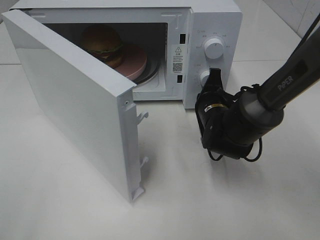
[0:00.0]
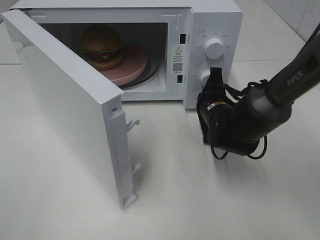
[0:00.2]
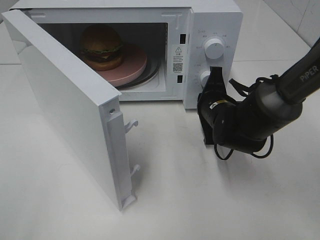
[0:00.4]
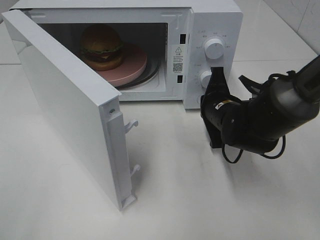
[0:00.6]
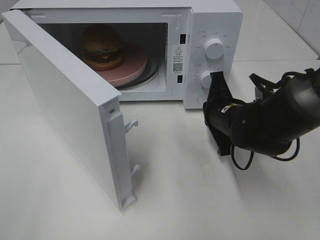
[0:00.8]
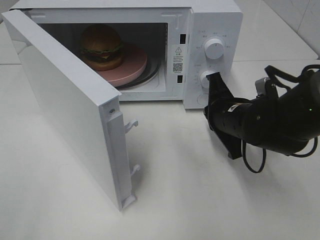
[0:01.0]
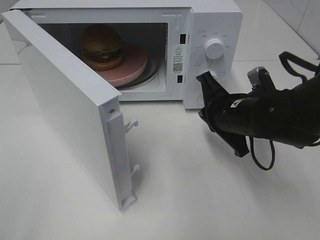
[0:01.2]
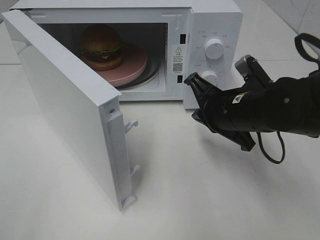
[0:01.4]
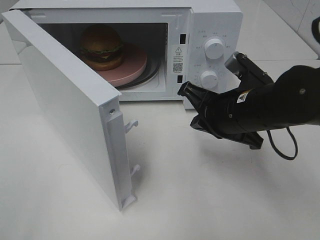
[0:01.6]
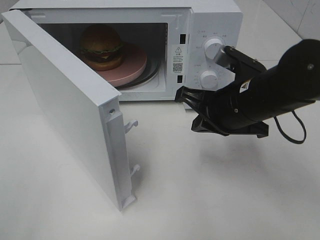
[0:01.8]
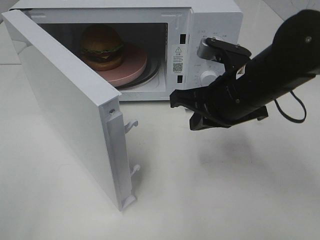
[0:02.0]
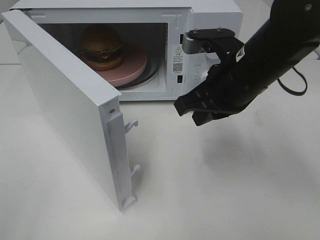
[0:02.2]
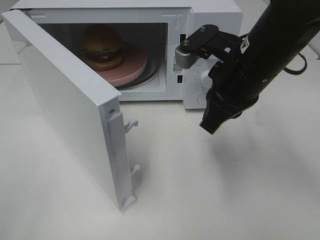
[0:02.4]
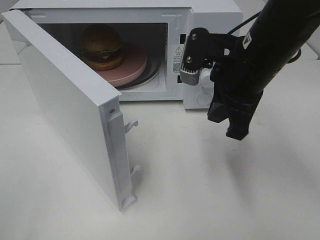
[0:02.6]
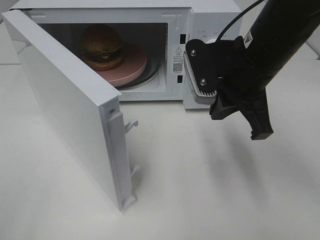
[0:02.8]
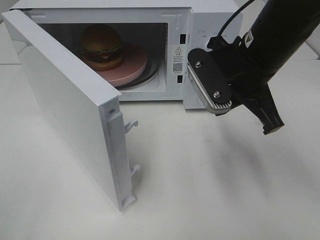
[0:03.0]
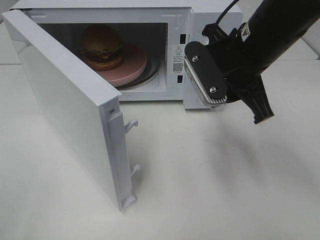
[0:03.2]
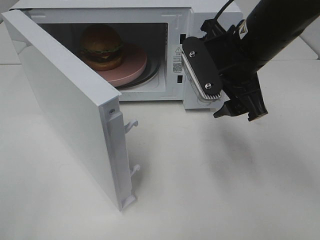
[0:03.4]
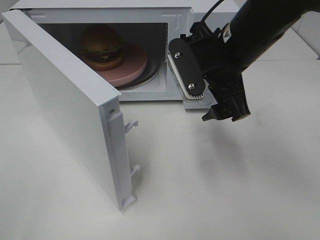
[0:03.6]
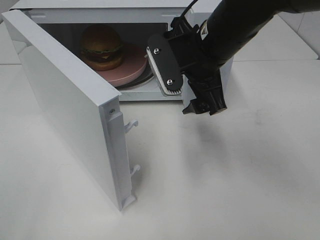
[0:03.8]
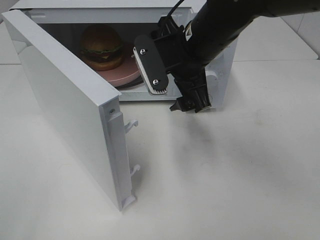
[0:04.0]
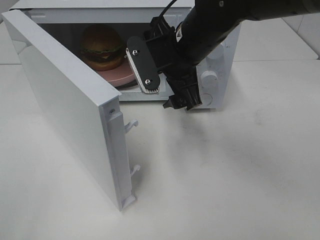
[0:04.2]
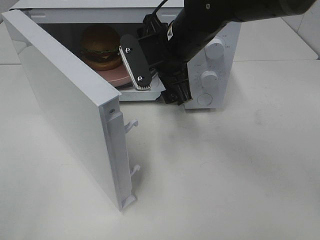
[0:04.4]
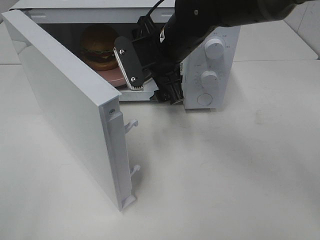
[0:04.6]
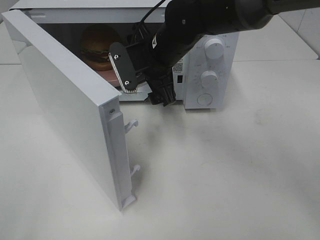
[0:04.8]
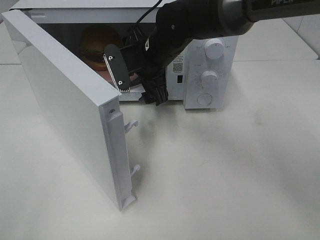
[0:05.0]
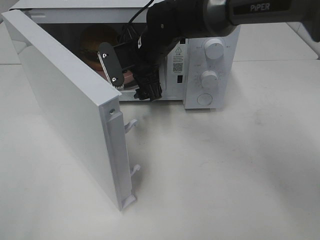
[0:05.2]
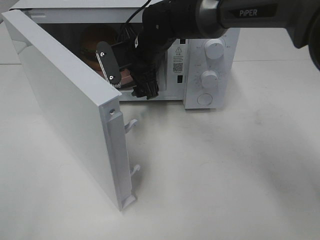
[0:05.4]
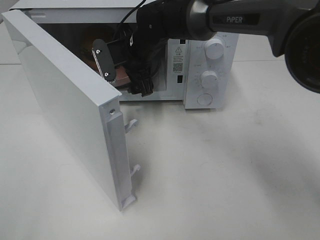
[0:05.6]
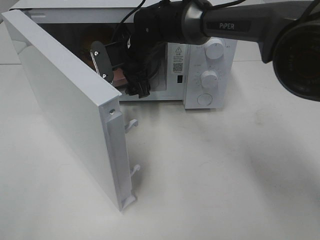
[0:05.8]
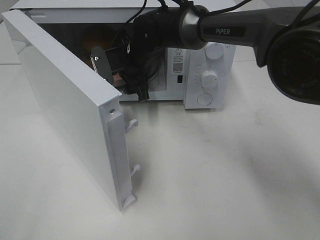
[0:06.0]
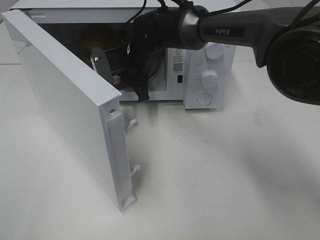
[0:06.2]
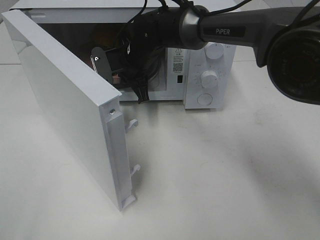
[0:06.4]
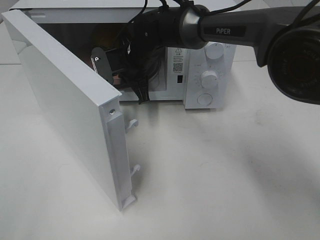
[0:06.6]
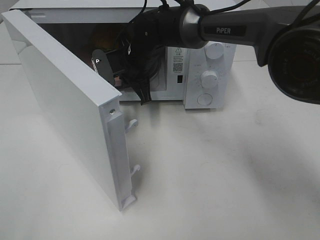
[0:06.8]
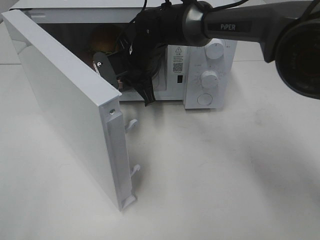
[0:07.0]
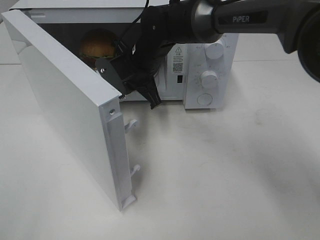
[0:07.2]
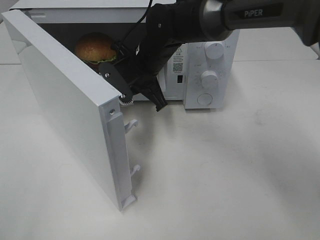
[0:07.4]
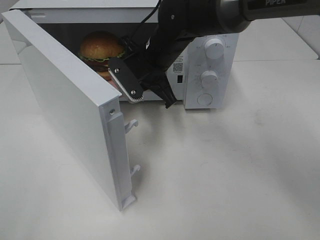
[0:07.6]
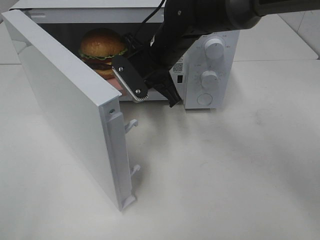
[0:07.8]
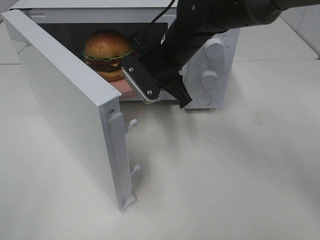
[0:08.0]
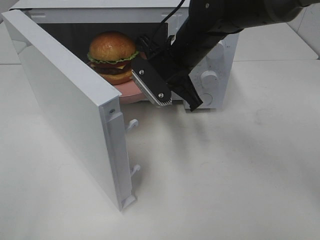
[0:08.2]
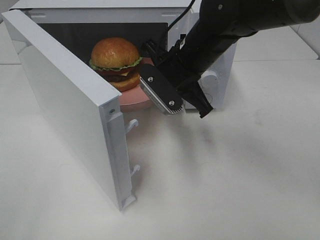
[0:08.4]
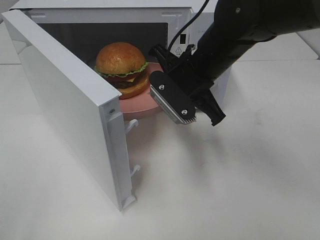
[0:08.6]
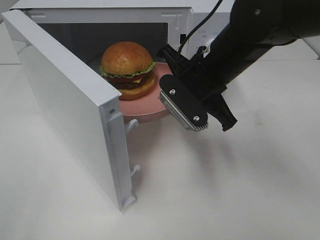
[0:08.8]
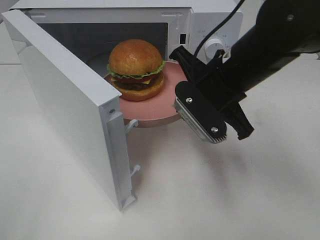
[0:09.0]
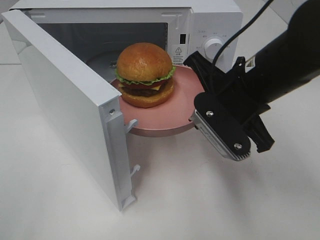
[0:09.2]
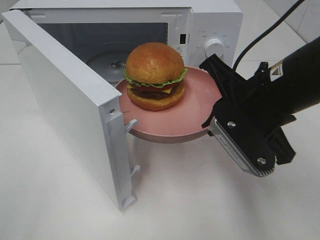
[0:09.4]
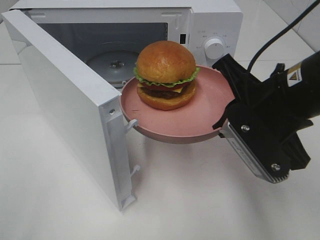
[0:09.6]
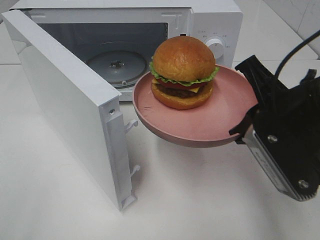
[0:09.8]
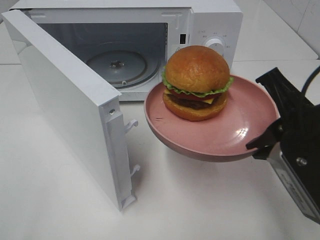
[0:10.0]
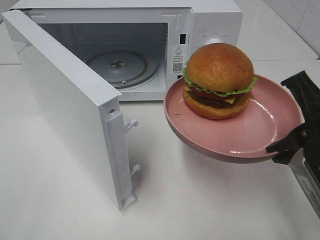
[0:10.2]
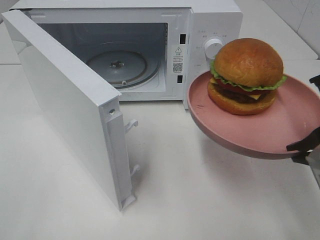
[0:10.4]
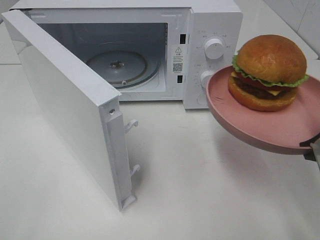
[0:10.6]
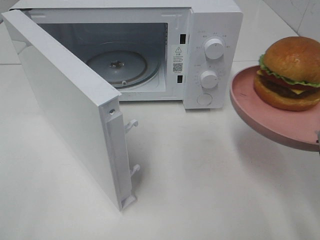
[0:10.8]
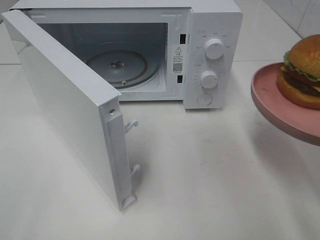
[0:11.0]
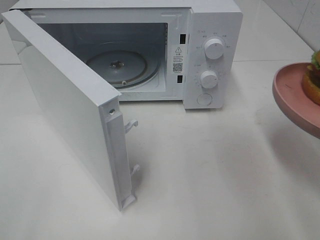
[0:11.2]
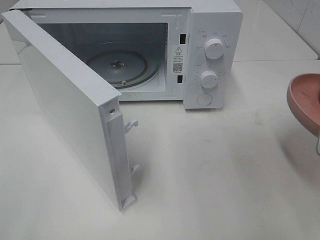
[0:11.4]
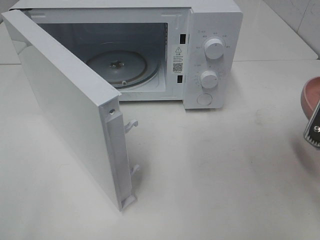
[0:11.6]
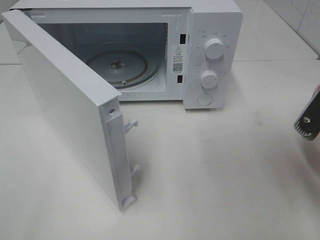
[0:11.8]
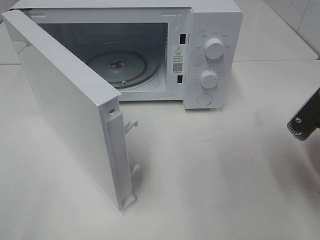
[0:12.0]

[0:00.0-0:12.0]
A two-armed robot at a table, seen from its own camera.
Task of the whole recording: Heat the burger.
Step, 0:01.2 to 0:06.6: Right hand: grab the plate with the hamburger.
0:00.0 to 0:01.6: The right gripper moves upward and backward, approximately 15 cm.
0:01.6 to 0:03.0: The right gripper shifts some 10 cm upward.
0:03.0 to 0:04.4: The right gripper heads to the left and forward, covering some 10 cm, and opens.
0:04.4 to 0:06.0: The right gripper travels forward, to the left and downward by some 15 cm.
0:06.0 to 0:07.6: The right gripper changes place by approximately 5 cm, and closes.
0:07.6 to 0:09.0: The right gripper is displaced backward and to the right by roughly 15 cm.
0:09.0 to 0:10.4: The right gripper goes approximately 20 cm backward and to the right.
0:10.4 to 0:12.0: The right gripper goes roughly 5 cm downward.

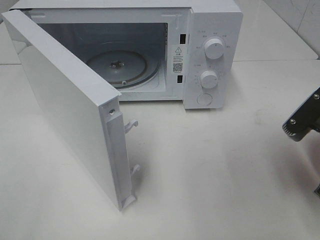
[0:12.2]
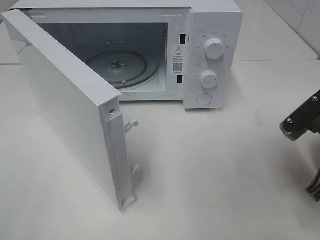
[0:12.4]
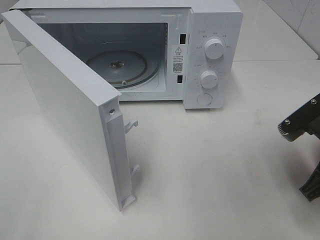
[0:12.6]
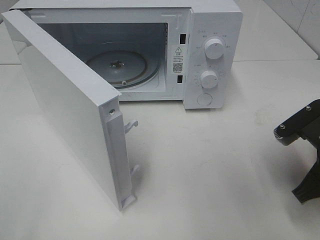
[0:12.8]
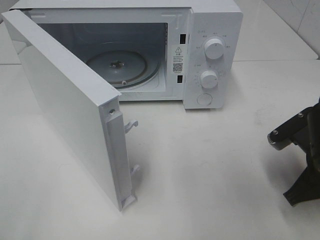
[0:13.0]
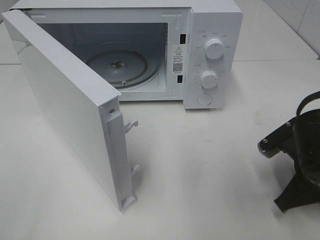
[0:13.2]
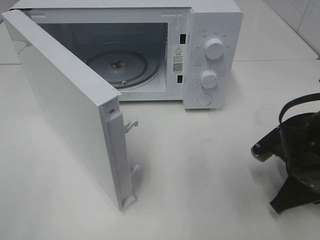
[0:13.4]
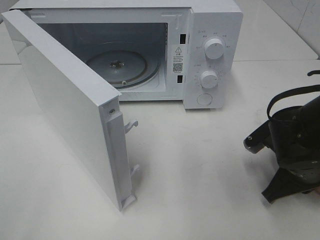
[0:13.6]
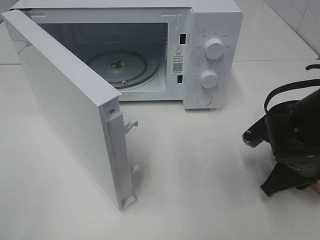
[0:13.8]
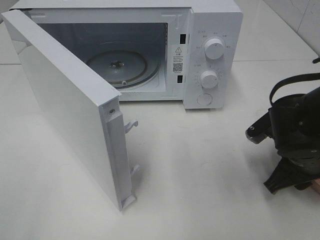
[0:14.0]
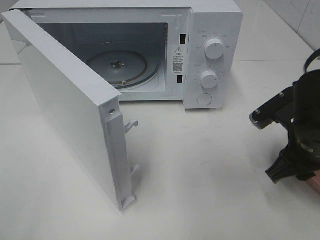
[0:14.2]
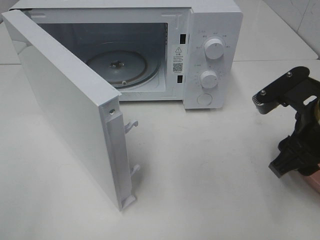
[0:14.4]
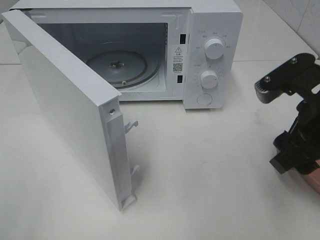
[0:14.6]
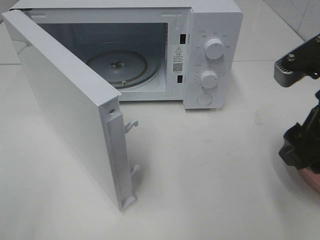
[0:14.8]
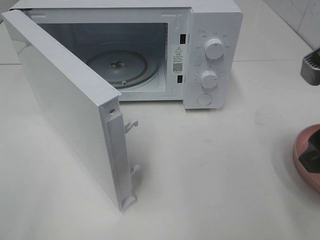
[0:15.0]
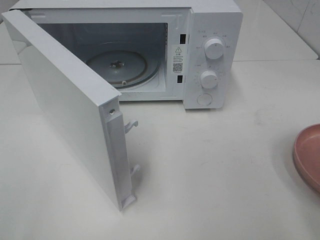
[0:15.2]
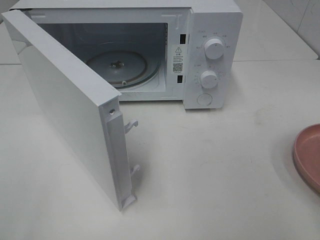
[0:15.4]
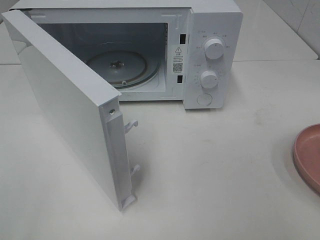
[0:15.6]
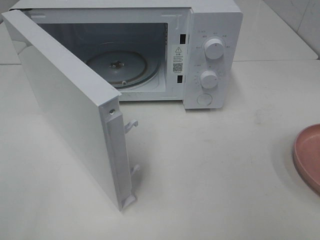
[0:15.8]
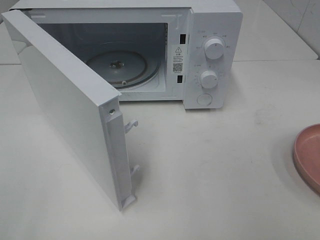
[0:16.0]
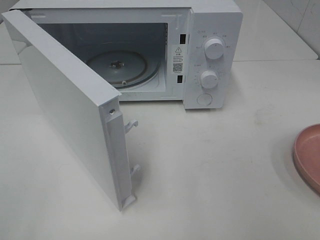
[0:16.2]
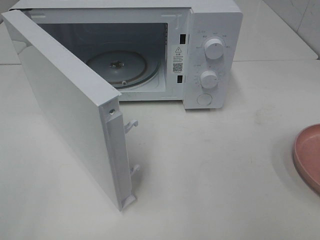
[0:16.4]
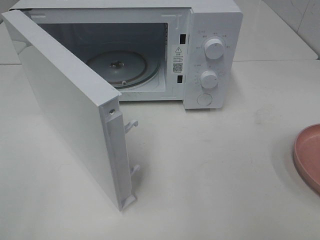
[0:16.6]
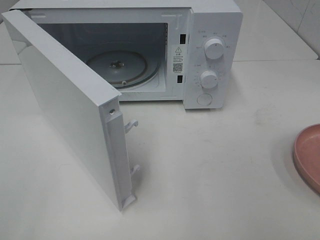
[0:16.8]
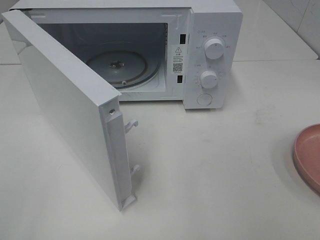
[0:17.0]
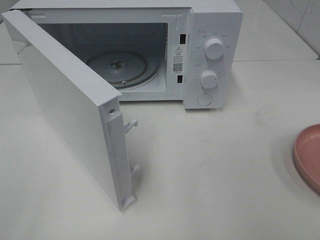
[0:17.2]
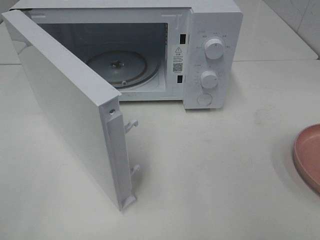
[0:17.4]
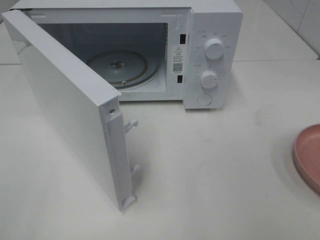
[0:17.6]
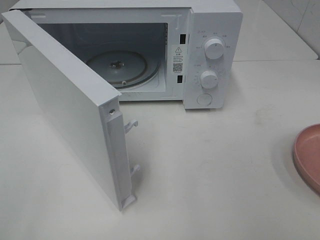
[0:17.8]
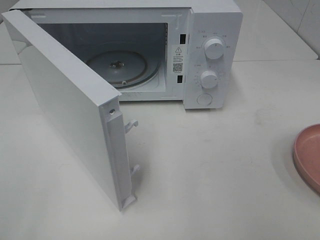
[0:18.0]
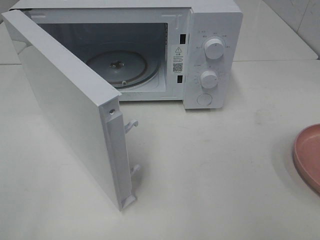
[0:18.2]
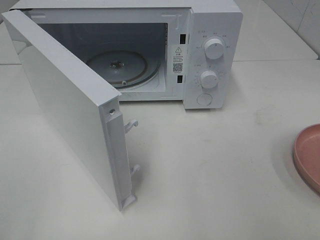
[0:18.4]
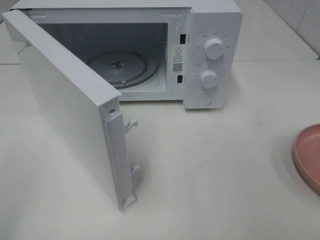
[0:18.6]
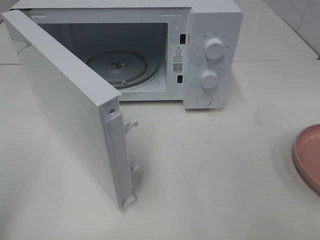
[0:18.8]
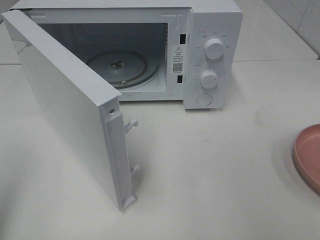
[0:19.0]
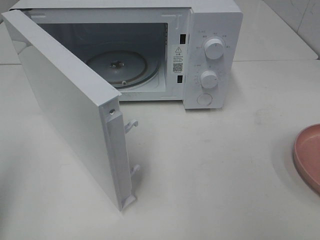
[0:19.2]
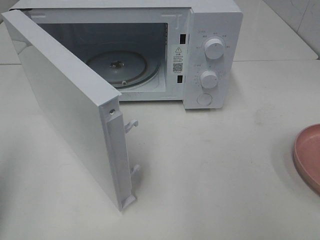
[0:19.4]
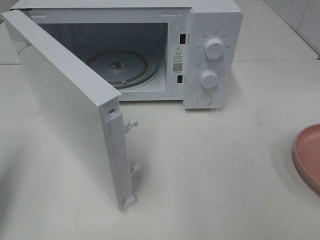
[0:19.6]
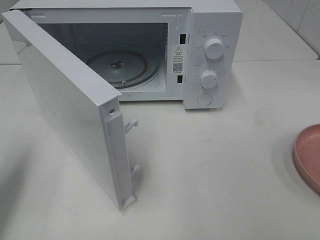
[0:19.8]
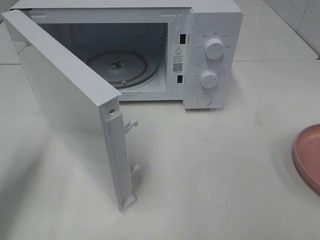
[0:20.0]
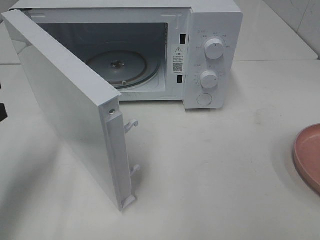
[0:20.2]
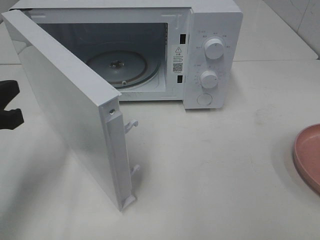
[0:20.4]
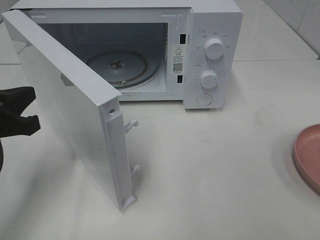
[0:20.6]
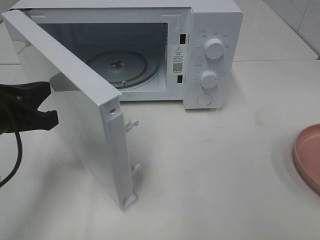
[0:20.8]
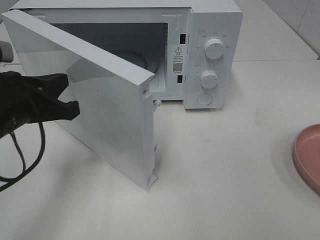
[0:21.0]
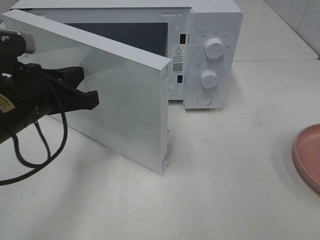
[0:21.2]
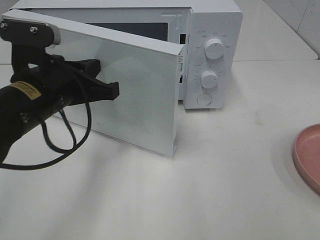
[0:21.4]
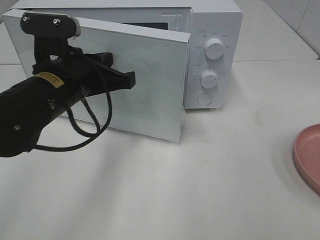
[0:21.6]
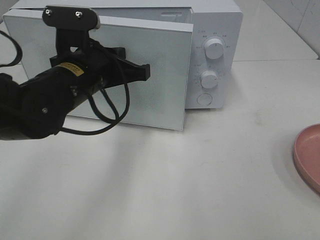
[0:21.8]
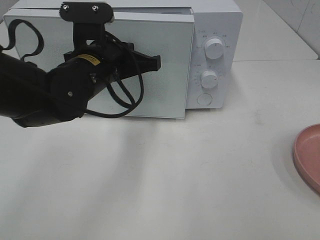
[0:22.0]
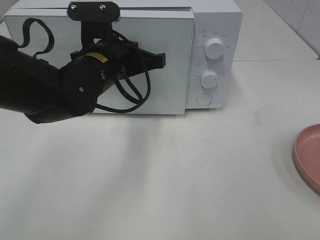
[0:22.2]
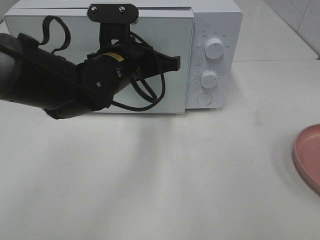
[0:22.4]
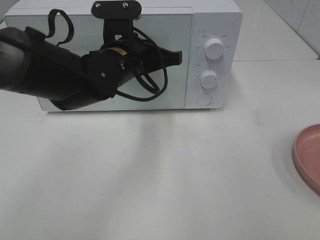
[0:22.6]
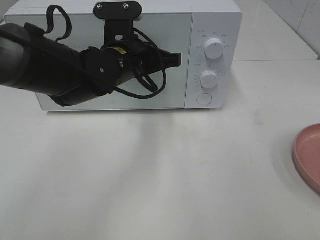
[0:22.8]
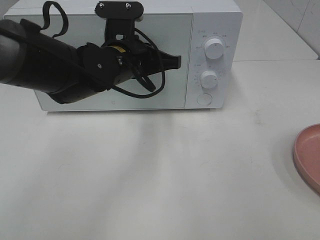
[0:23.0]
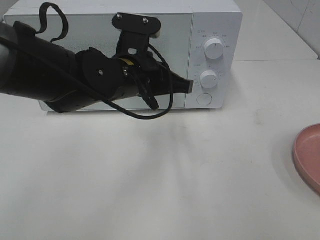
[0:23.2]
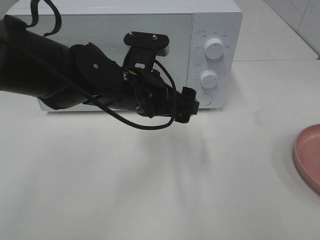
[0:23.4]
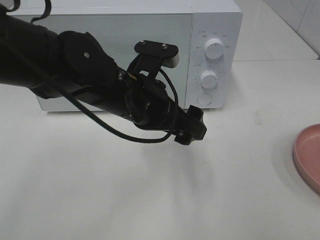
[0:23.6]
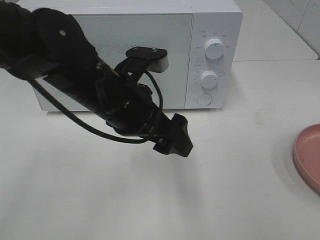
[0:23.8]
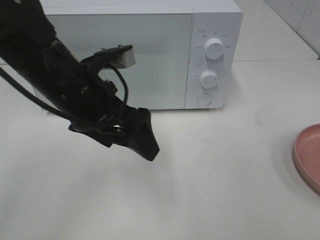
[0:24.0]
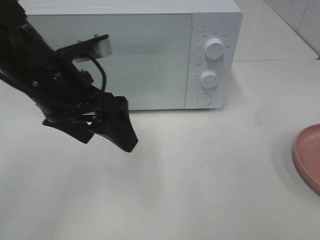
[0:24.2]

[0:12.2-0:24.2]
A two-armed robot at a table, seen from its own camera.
Task of the whole recording: Heat the burger.
Step, 0:12.2 to 0:14.2: Right hand: place the plate on the table.
Step, 0:14.4 to 0:23.2: Left hand: close the microwave door.
0:12.2 to 0:13.8: The right gripper is displaced downward and forward by about 10 cm.
0:13.8 to 0:15.2: The right gripper travels upward and backward by some 20 cm, and opens its fingers.
0:16.6 to 0:18.2: Both grippers stay put.
0:18.2 to 0:19.8: The left gripper heads forward, covering approximately 20 cm, and closes its fingers.
0:19.8 to 0:21.2: The left gripper shifts some 15 cm to the right and forward.
0:21.2 to 0:22.6: The left gripper heads to the right and forward, covering roughly 15 cm.
0:22.6 to 0:24.2: The left gripper goes some 15 cm backward, to the left and upward, and opens its fingers.
